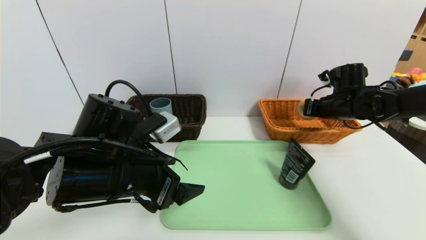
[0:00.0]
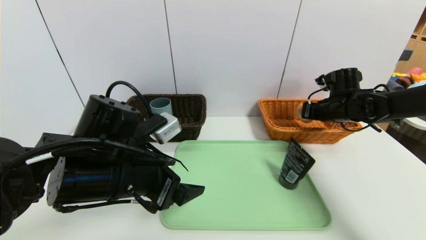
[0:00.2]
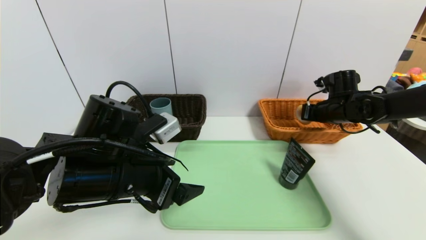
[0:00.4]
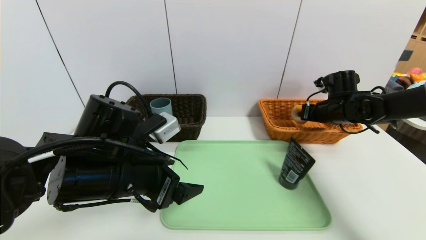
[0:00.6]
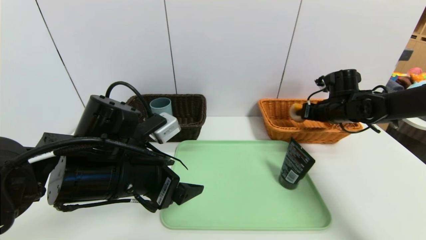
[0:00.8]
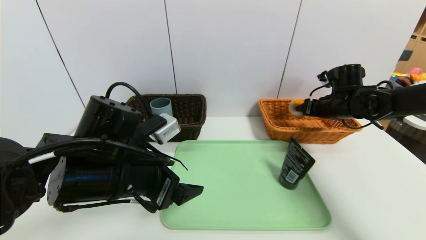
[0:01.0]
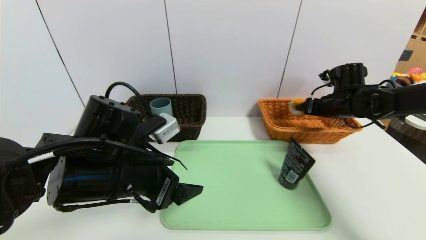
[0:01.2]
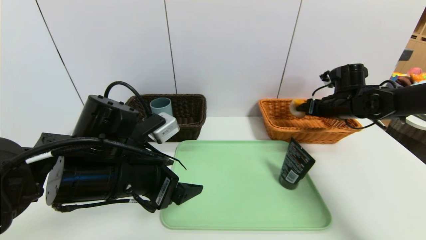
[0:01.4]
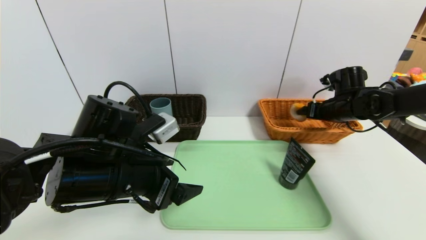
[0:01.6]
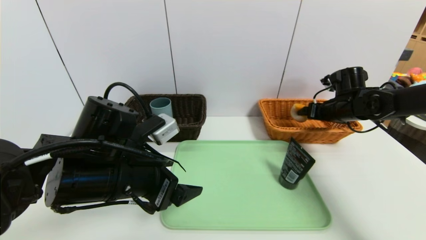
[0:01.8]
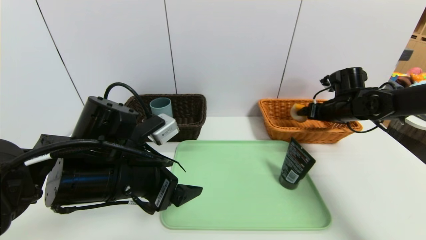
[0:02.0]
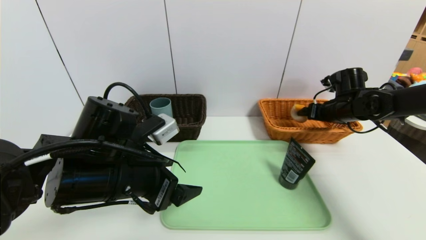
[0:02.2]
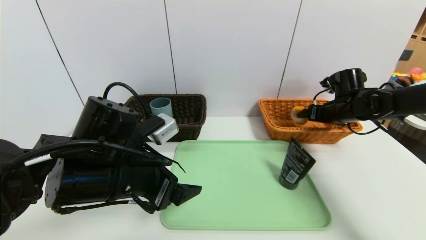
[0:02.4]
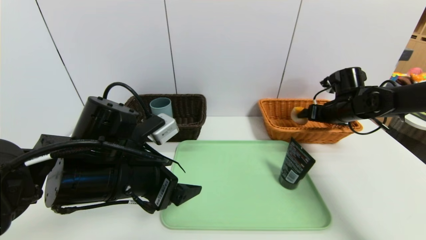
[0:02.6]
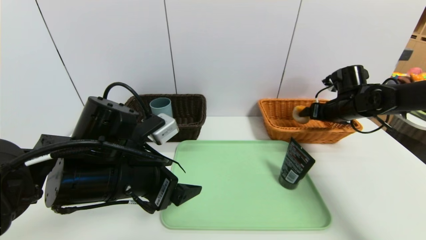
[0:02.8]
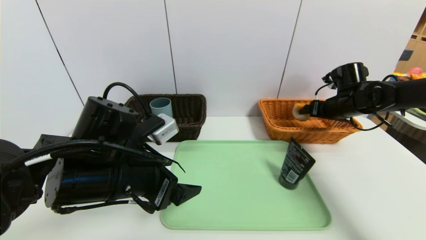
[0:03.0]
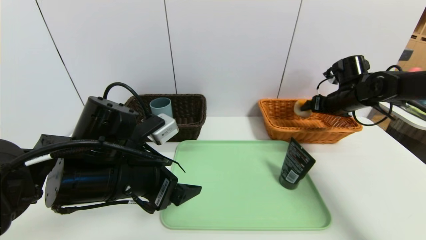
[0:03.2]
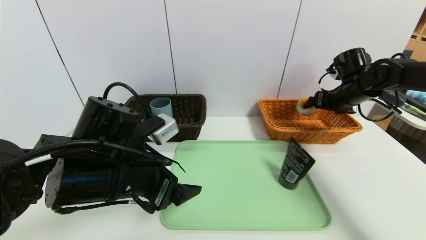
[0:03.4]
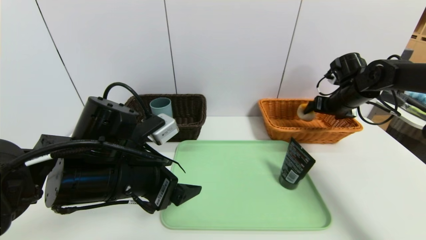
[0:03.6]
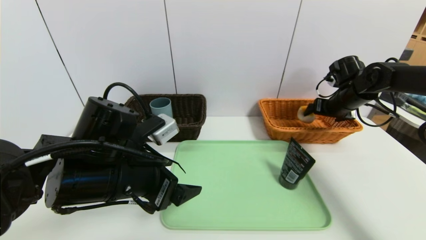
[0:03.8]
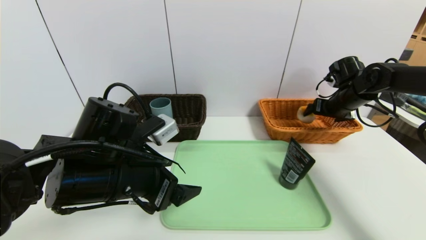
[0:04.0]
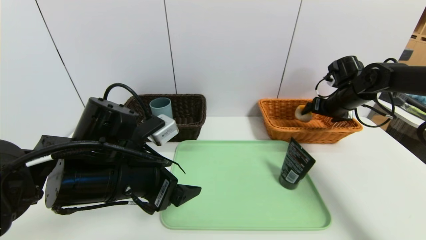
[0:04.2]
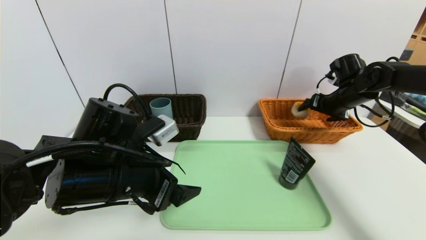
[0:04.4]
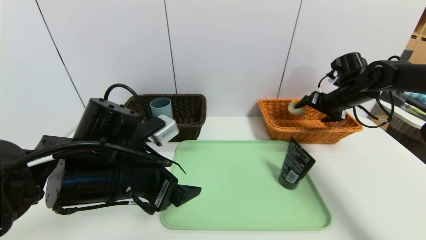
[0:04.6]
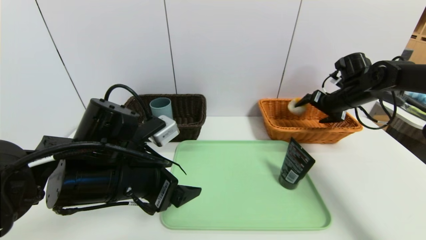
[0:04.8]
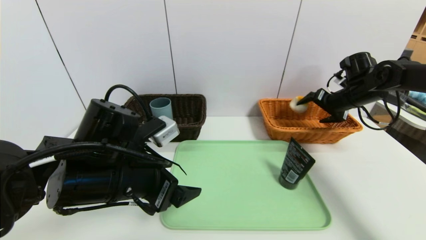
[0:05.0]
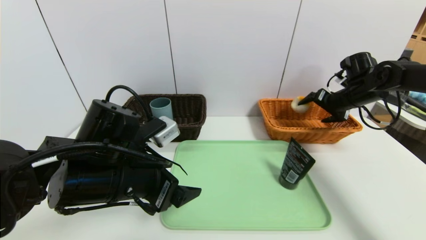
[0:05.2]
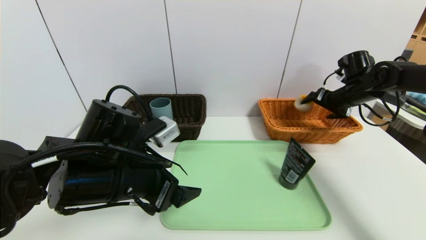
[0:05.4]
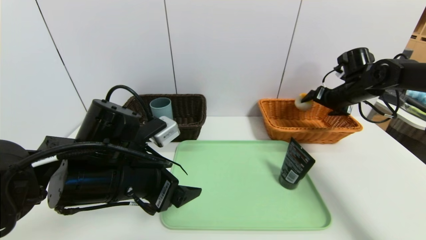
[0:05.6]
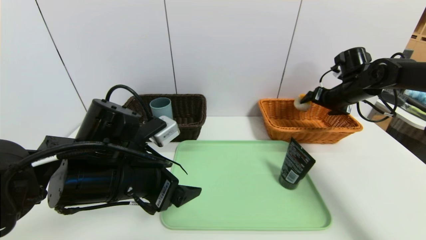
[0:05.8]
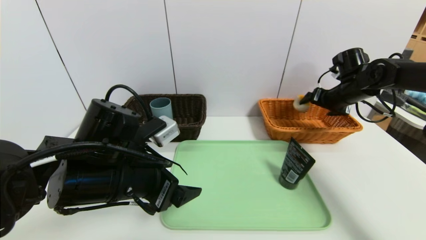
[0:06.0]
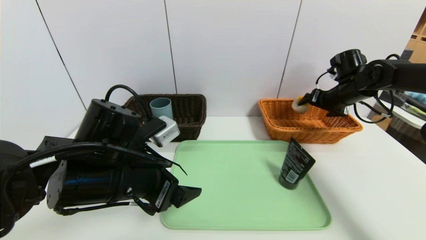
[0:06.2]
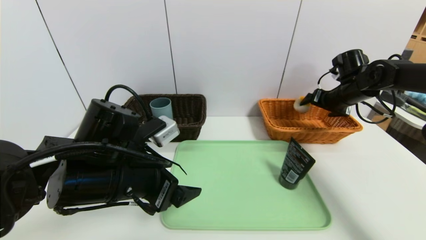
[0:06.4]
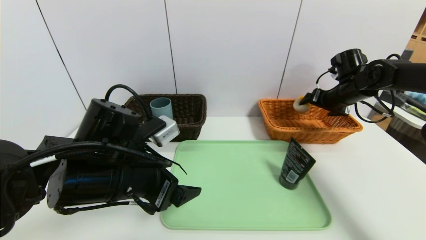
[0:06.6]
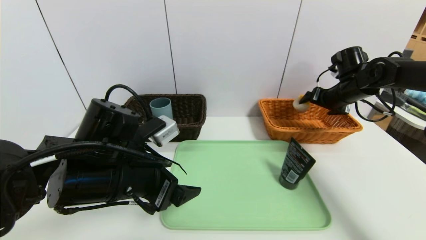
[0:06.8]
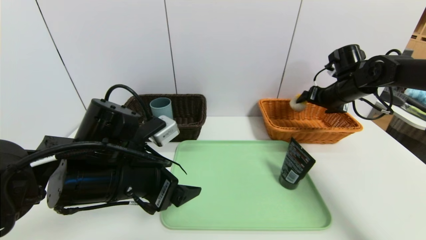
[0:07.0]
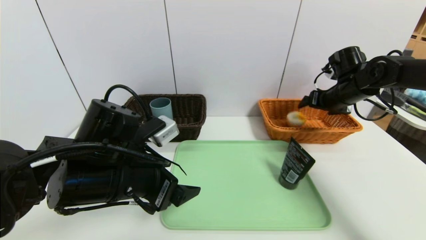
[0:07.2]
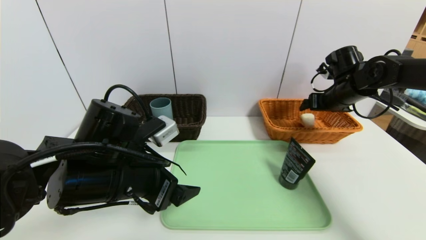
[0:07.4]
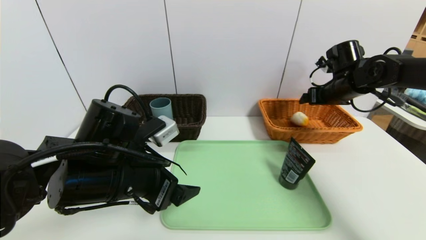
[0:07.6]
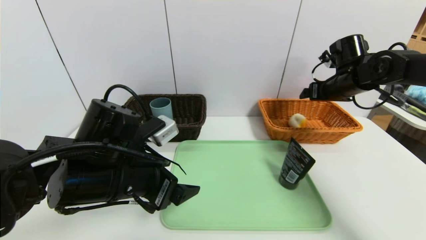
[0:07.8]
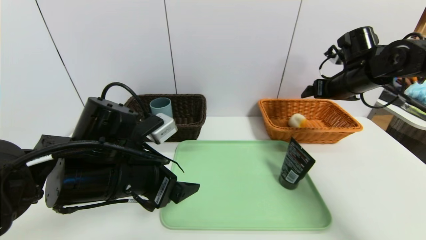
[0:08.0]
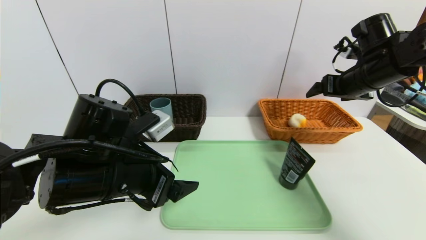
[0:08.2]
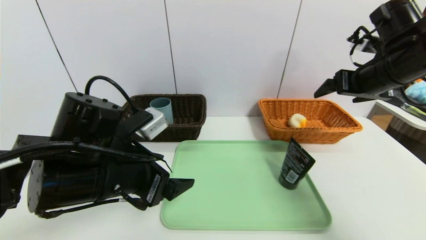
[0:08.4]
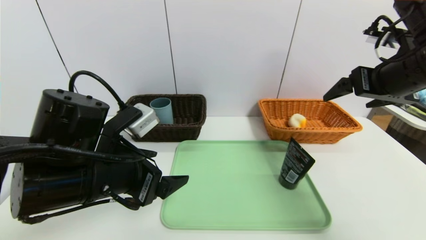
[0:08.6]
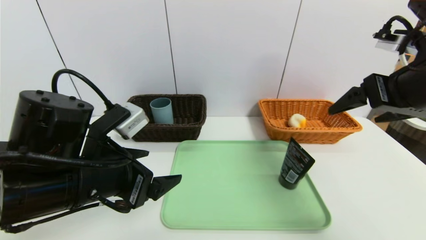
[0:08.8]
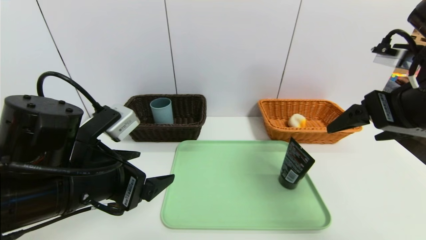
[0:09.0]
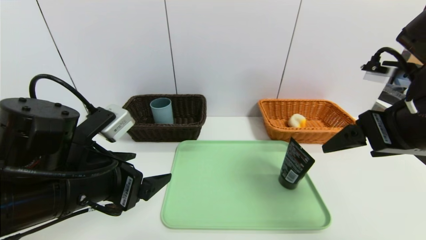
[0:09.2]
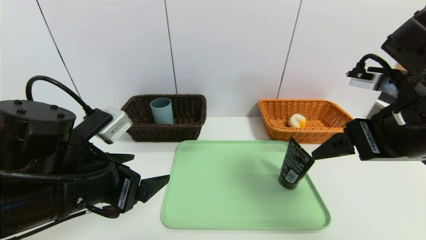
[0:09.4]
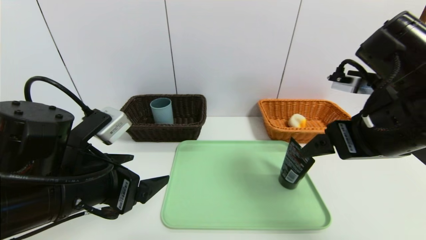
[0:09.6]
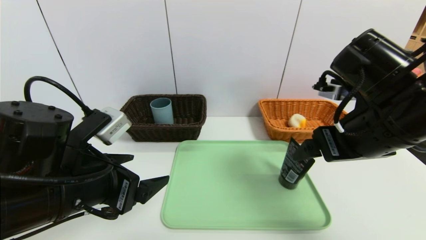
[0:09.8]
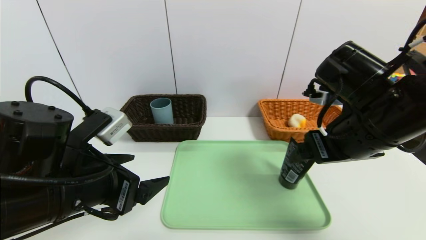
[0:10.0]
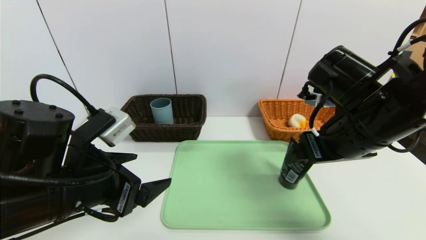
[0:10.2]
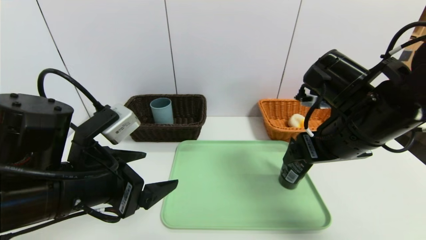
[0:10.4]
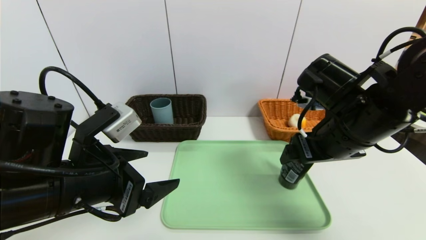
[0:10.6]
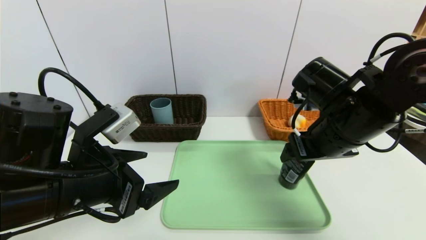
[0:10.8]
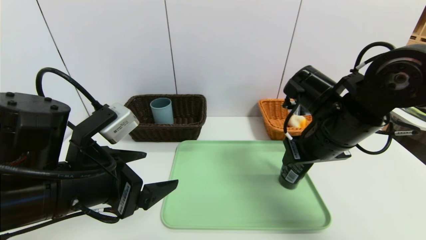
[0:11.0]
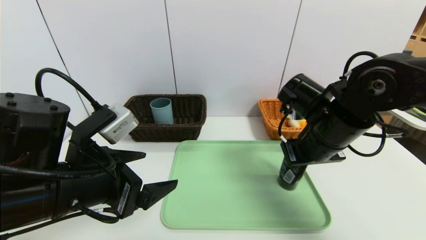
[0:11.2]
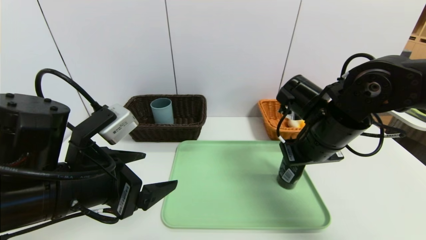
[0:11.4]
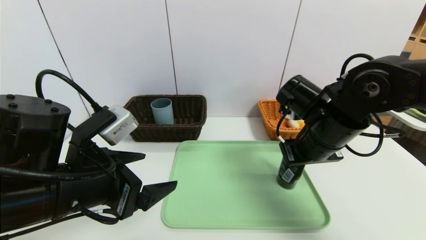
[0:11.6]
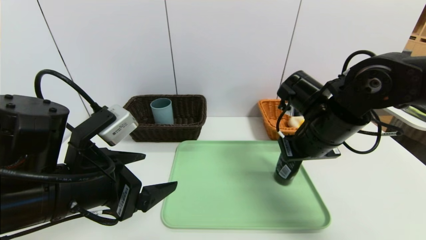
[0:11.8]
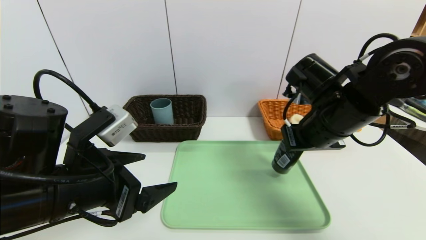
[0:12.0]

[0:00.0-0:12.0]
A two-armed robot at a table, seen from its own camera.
Task of the whole recording: place the food in the right basket with the right gripper, and place the non food items in the left basket with the left gripper.
Step, 0:00.0 to 0:07.8: Grasp the egg yolk pastry and put it in the right basket.
0:00.0 to 0:01.6: The right gripper opens up.
0:01.6 to 0:04.4: The grippers move only a little.
0:04.4 to 0:06.0: The grippers make only small movements.
0:07.6 to 0:09.0: The left gripper changes place by about 5 cm, while the right gripper is displaced backward by some 25 cm.
0:09.0 to 0:10.4: The right gripper travels downward and to the left by about 10 cm.
0:10.4 to 0:12.0: The right gripper closes up.

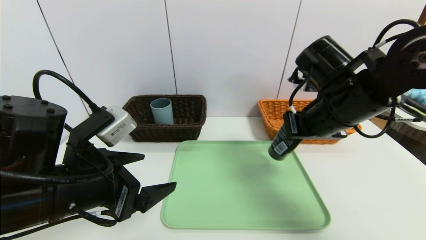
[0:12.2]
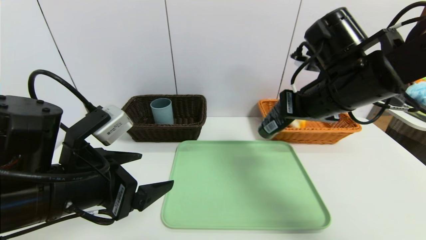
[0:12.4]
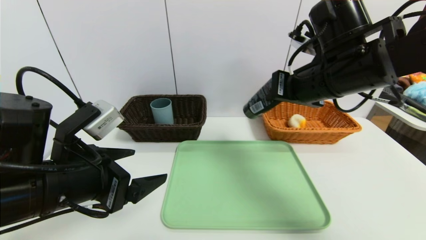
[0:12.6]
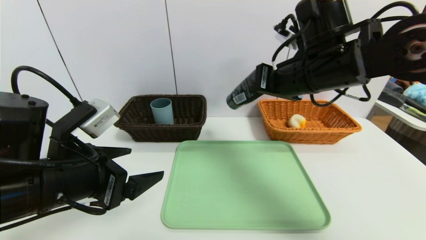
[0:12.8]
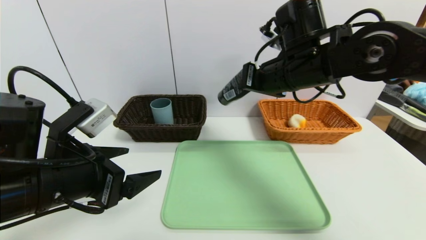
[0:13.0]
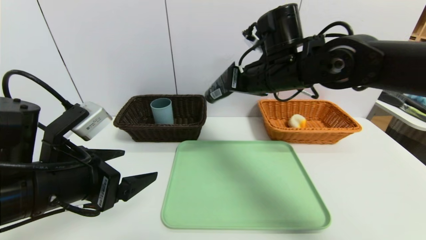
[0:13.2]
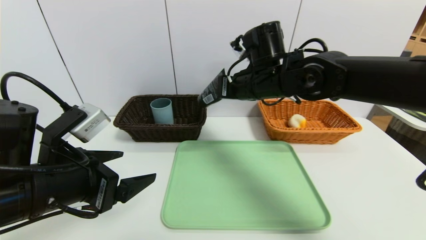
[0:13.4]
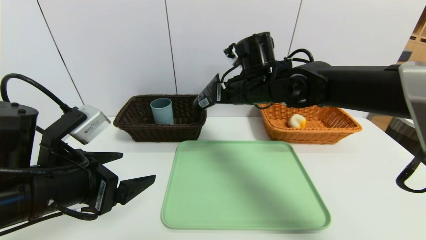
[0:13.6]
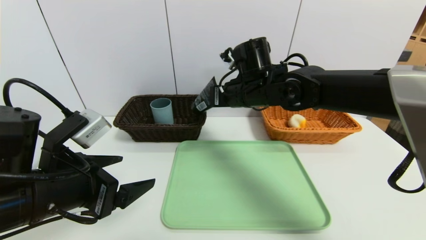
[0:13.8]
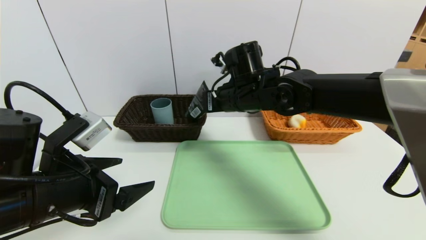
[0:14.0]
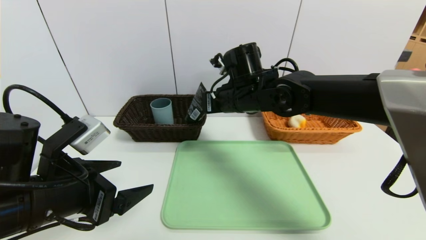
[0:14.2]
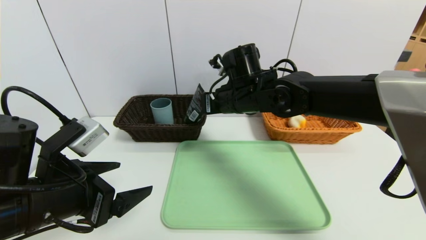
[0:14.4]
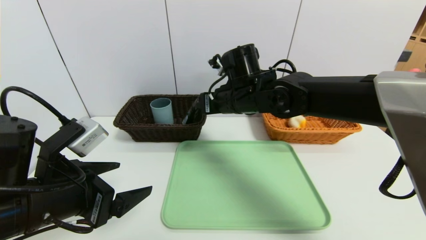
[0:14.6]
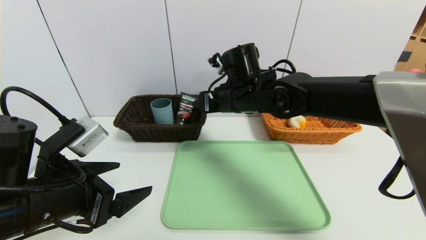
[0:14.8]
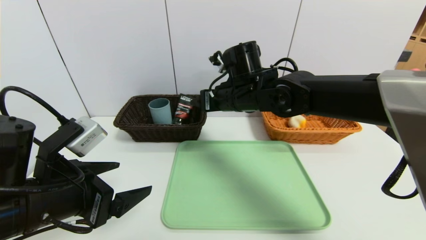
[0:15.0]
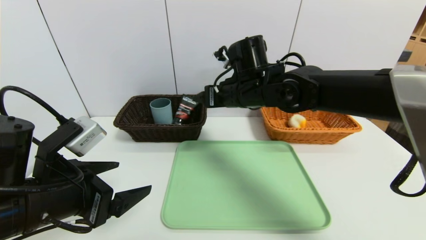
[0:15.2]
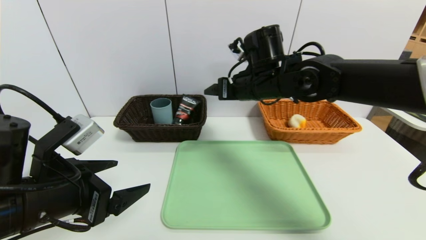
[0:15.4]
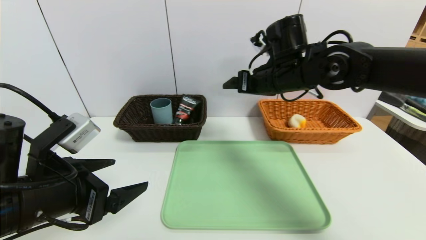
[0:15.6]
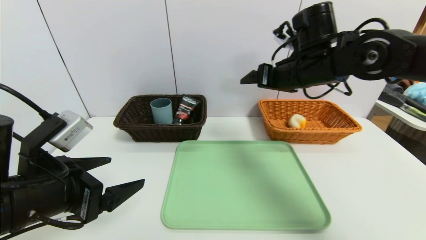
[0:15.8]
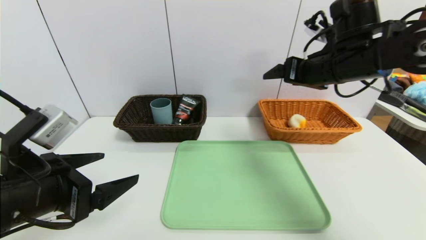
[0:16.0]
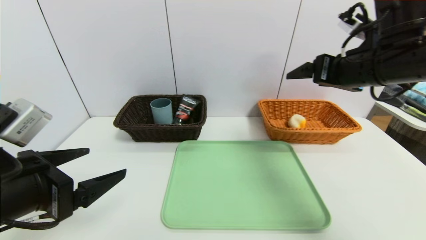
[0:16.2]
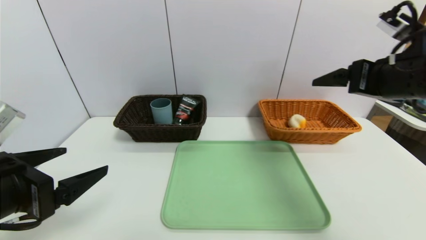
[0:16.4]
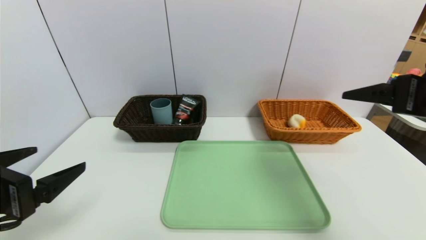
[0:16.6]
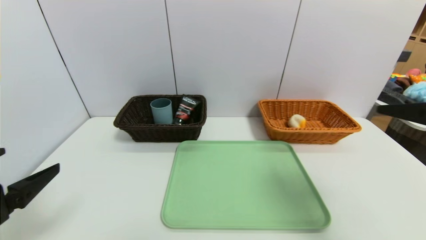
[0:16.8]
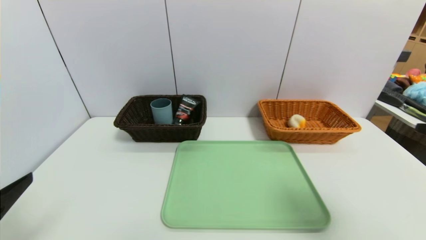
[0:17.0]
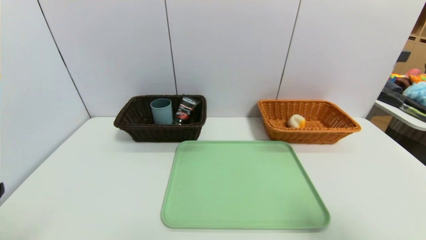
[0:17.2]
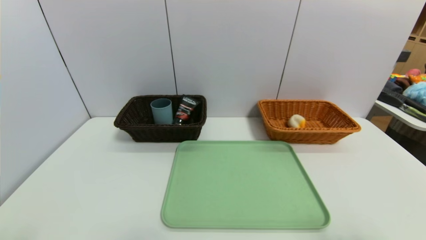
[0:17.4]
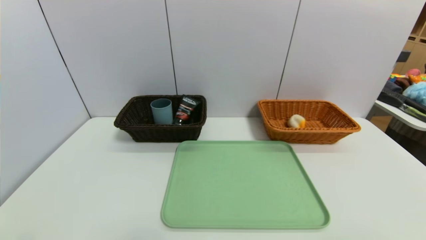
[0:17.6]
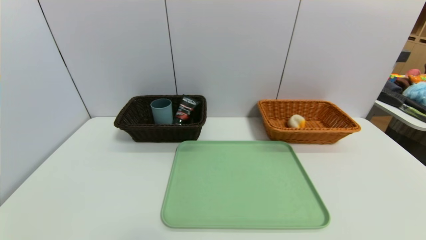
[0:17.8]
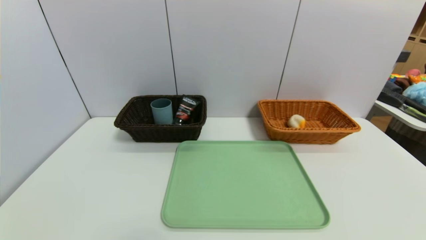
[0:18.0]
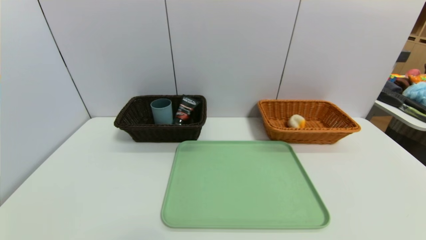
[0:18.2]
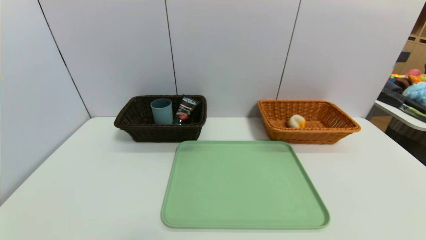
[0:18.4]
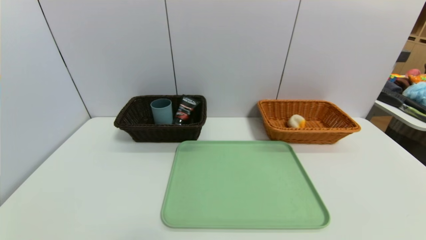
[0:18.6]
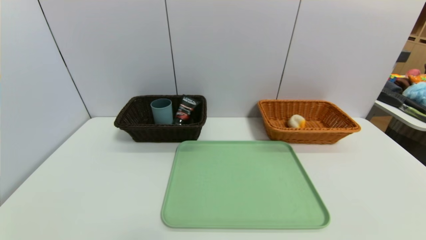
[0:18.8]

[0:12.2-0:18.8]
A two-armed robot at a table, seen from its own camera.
Task of the whole recording: place the food in the right basket with the right gripper, and place the non food items in the left basket with the left gripper.
Step, 0:12.2 to 0:14.8: Grasp the soft cleanser and put it in the left basket.
0:12.2 to 0:13.8: The right gripper goes approximately 15 cm to the left and forward.
0:13.8 to 0:15.4: The right gripper opens its fingers.
0:15.4 to 0:17.2: The right gripper shifts some 40 cm backward and to the right. Meanwhile the left gripper heads backward and to the left, covering roughly 15 cm.
0:17.2 to 0:18.8: The right gripper moves downward and backward, roughly 15 cm.
